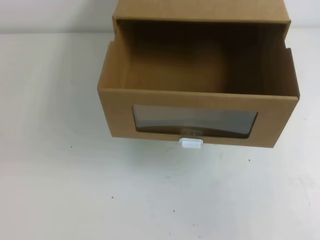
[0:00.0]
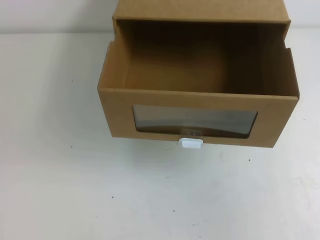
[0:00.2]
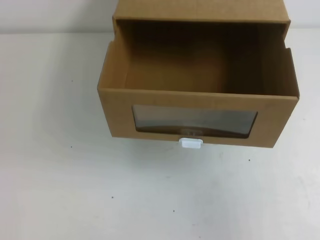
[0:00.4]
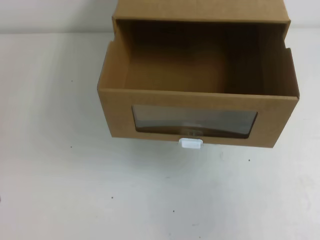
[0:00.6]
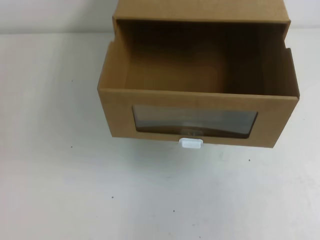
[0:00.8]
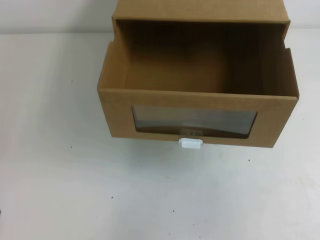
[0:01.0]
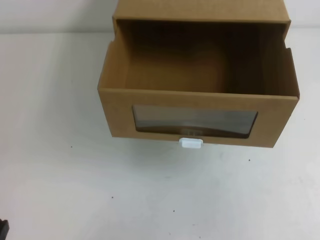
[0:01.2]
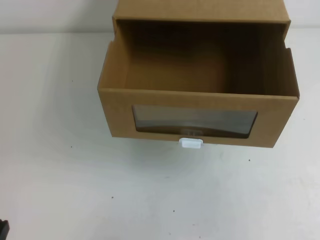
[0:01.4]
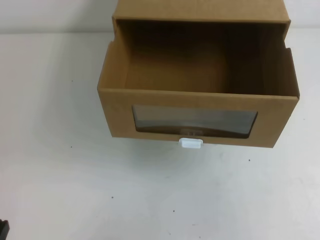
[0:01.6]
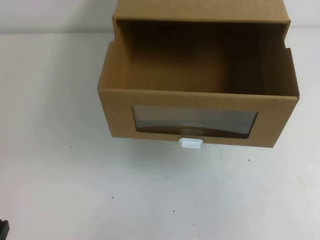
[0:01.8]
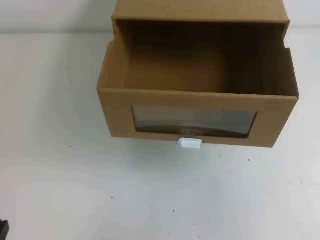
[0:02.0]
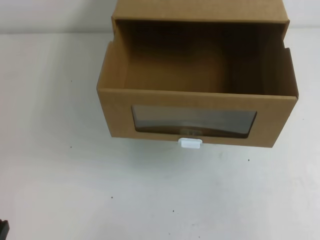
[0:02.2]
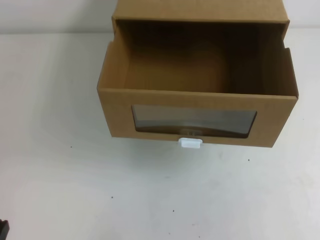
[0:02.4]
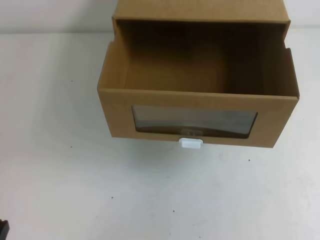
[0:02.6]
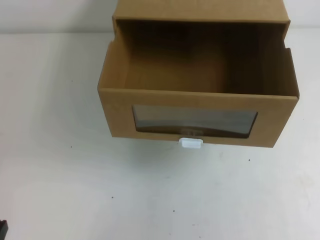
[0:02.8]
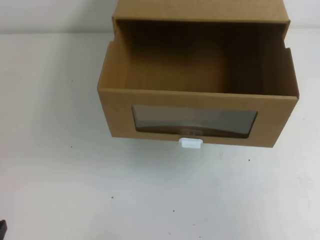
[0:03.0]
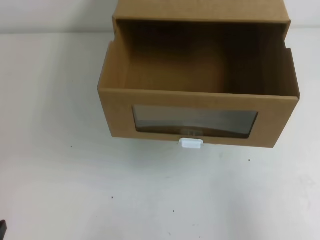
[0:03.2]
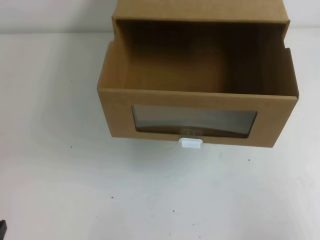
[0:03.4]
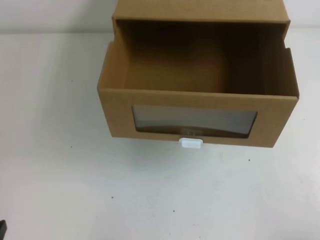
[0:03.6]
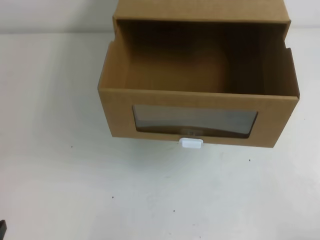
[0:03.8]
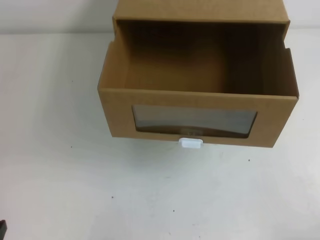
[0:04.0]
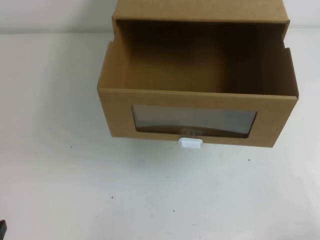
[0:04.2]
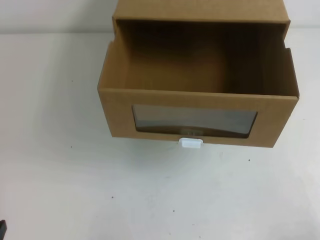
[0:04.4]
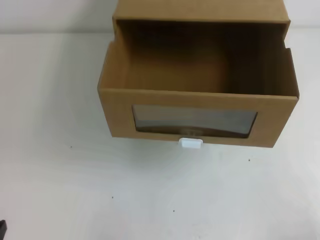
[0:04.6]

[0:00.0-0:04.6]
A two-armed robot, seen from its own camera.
Task of the whole recording: open the shoebox on the table.
0:00.0 to 0:01.6: The left gripper is displaced downward by some 20 cm.
0:03.0 to 0:04.6: The right gripper travels downward by roughly 20 cm.

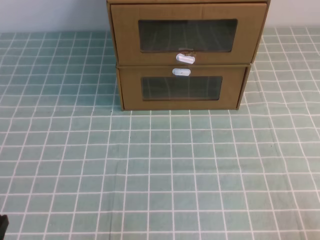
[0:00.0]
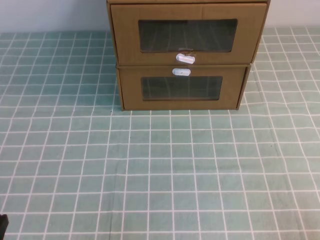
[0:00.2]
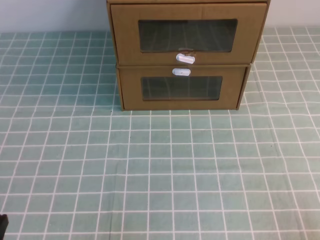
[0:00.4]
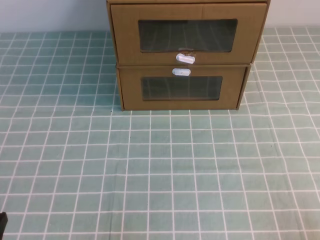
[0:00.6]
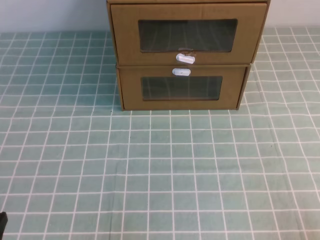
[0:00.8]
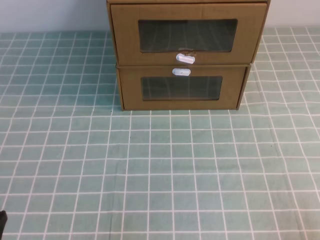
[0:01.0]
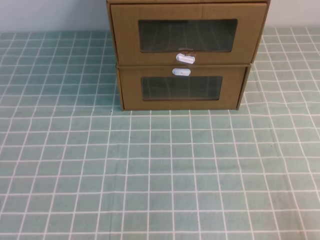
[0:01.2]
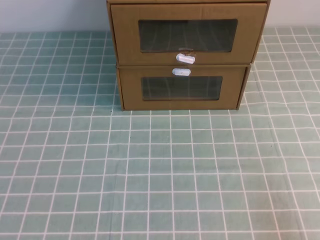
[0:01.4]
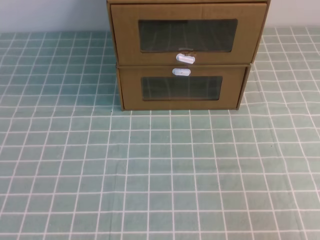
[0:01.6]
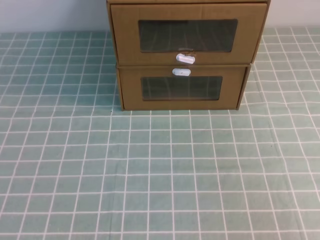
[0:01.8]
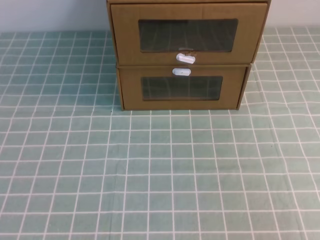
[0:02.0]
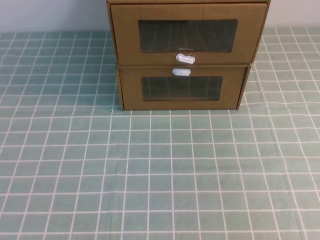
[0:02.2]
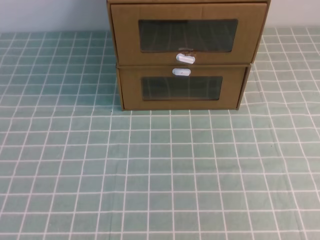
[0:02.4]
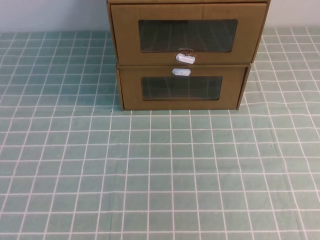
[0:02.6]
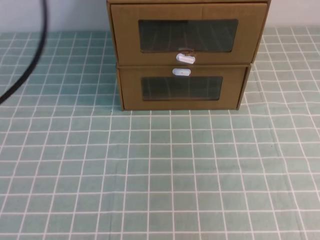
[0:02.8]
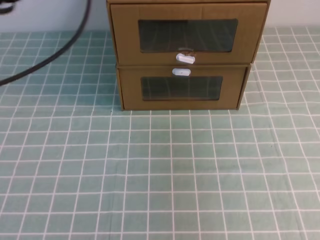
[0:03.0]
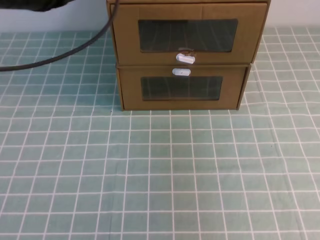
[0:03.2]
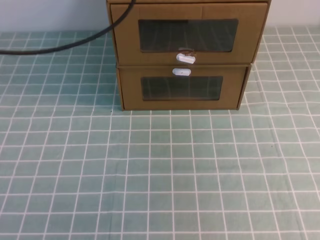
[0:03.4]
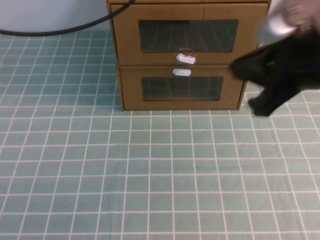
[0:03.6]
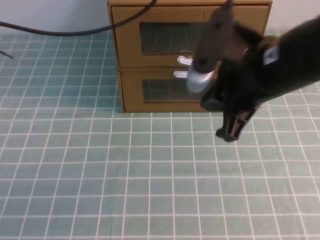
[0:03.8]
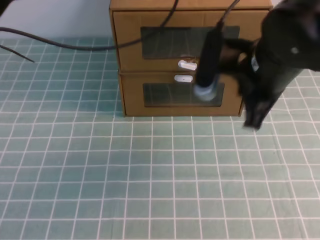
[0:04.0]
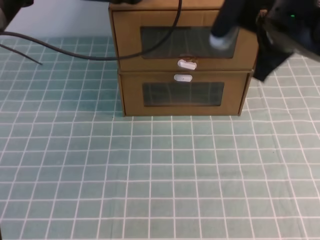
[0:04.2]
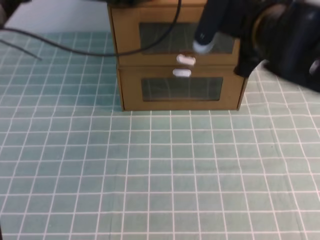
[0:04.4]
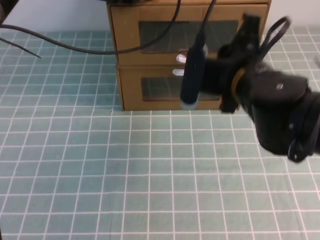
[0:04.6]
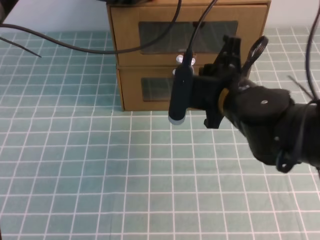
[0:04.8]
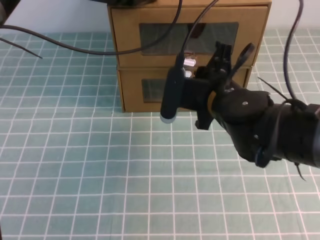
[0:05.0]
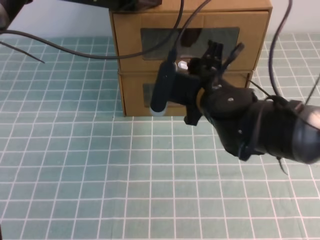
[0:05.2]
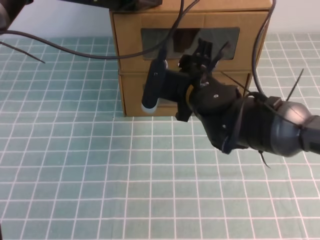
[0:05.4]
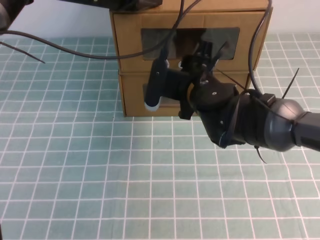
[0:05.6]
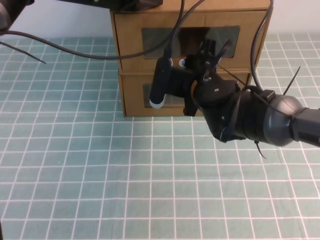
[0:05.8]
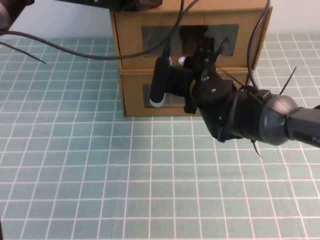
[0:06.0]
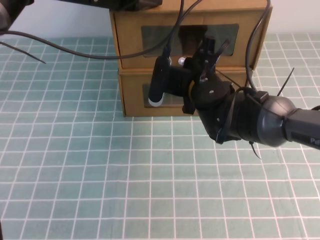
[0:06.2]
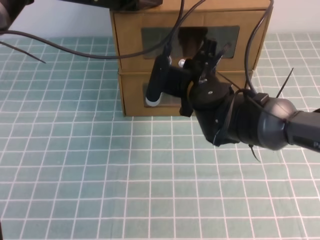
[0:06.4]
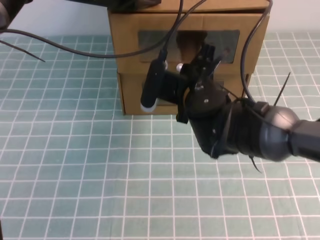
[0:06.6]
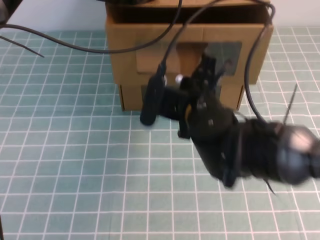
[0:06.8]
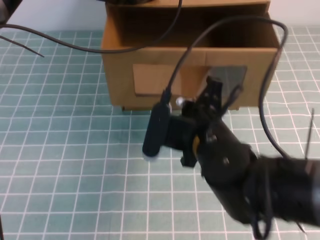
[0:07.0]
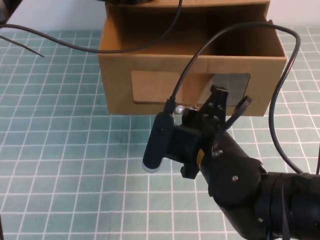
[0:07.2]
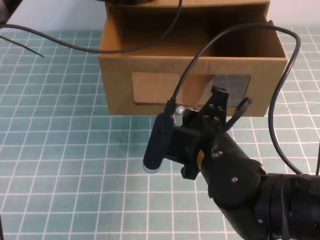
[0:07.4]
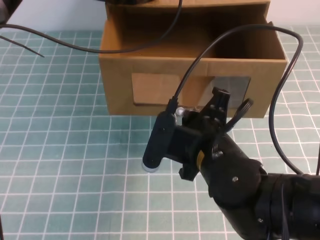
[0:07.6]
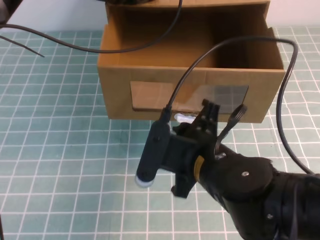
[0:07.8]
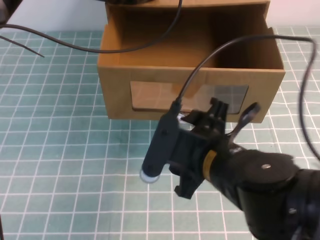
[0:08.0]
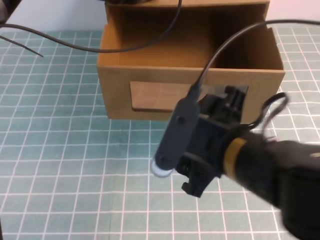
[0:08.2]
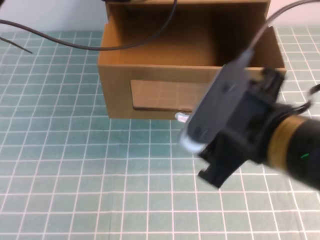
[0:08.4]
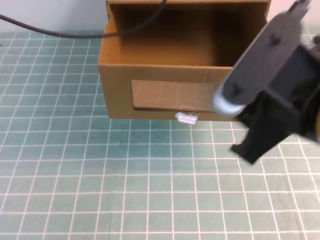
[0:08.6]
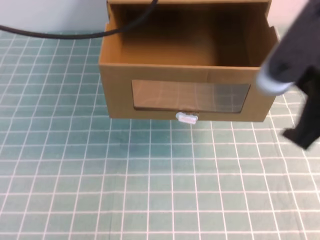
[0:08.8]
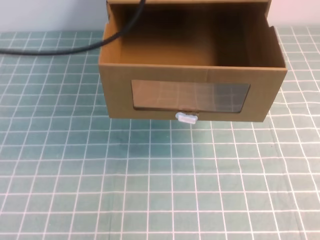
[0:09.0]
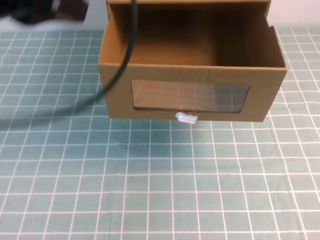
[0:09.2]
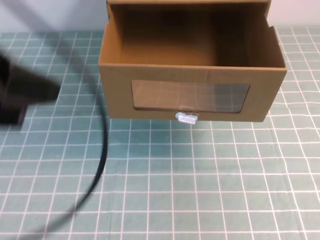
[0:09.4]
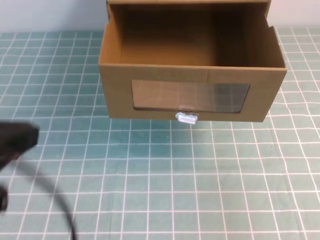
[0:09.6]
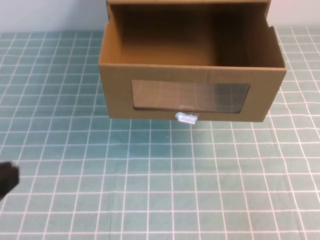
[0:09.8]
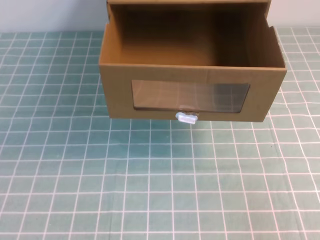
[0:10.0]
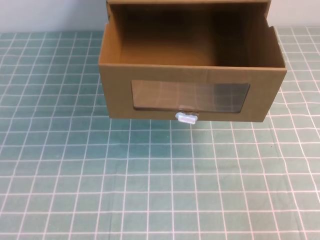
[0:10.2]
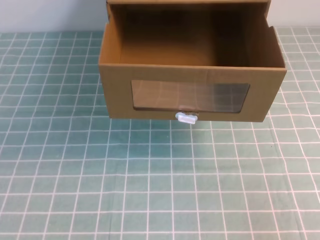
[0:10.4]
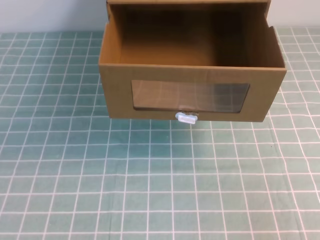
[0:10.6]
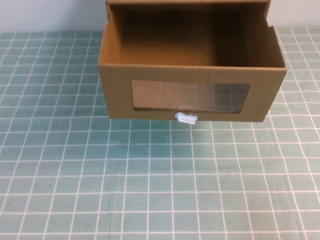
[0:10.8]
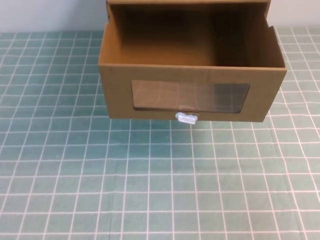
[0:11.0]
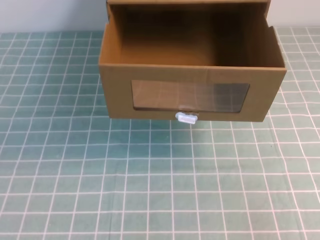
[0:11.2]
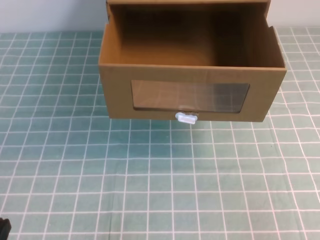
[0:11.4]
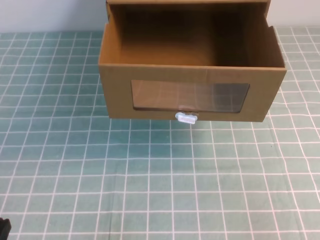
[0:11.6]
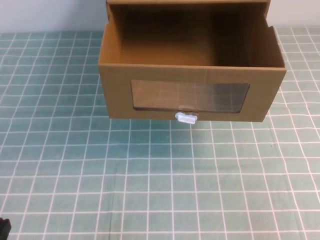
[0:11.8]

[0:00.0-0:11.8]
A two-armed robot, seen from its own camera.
Task of the whole recording: open the shoebox on the cyan tablecloth.
0:01.4 to 0:03.0: The left gripper goes some 30 cm upward and forward.
0:03.0 to 0:04.4: The right gripper is displaced forward, to the left and downward by approximately 30 cm; the left gripper moves forward, to the right and downward, roughly 25 cm.
0:04.4 to 0:06.0: The right gripper travels downward, to the left and forward by roughly 15 cm.
0:06.0 to 0:07.4: The right gripper moves backward, some 15 cm.
0:07.4 to 0:08.8: The left gripper travels upward and backward by about 10 cm; the right gripper travels upward, to the right and backward by approximately 20 cm, and opens its fingers.
0:08.8 to 0:10.4: The right gripper is displaced to the right, backward and downward by roughly 25 cm, and closes its fingers, while the left gripper goes roughly 35 cm backward.

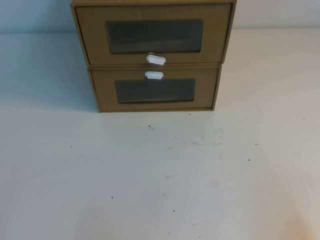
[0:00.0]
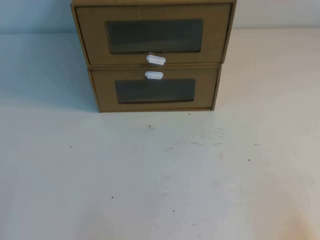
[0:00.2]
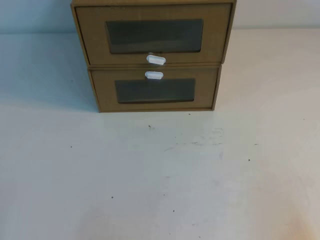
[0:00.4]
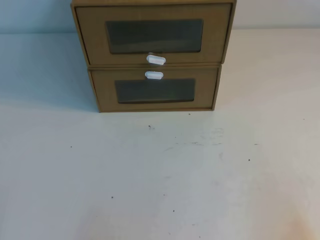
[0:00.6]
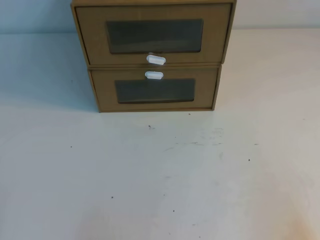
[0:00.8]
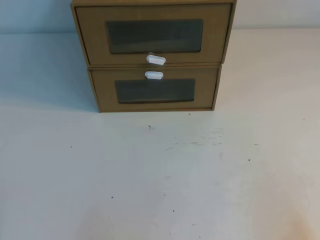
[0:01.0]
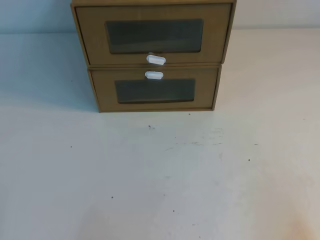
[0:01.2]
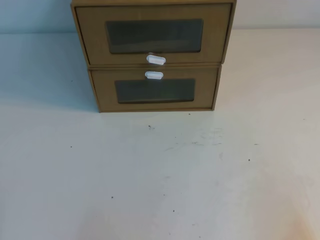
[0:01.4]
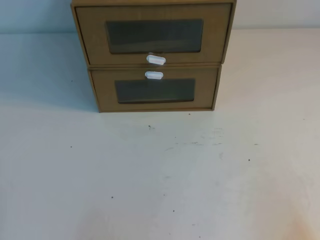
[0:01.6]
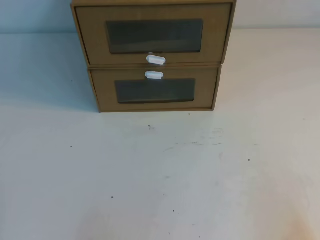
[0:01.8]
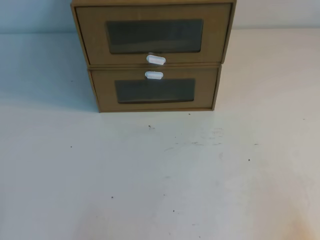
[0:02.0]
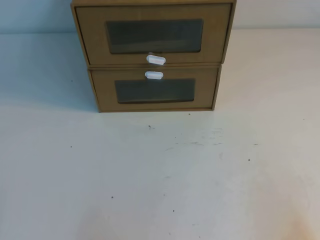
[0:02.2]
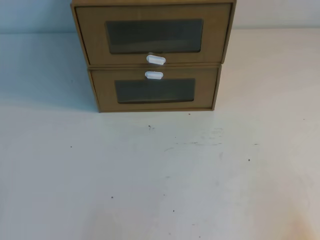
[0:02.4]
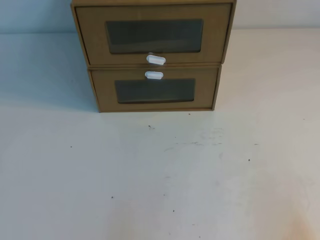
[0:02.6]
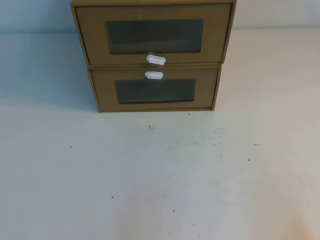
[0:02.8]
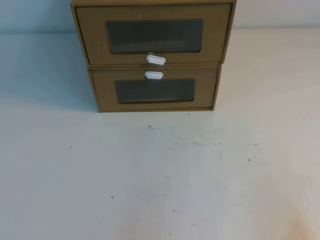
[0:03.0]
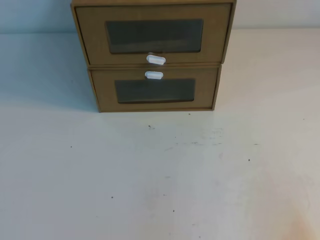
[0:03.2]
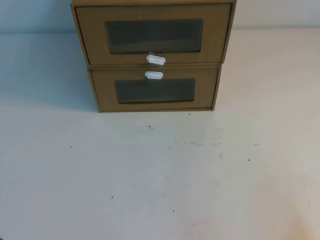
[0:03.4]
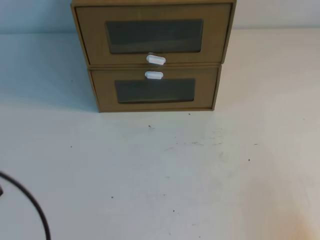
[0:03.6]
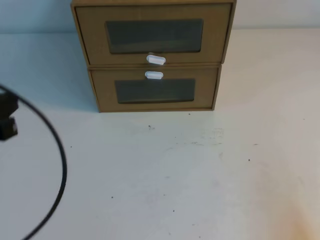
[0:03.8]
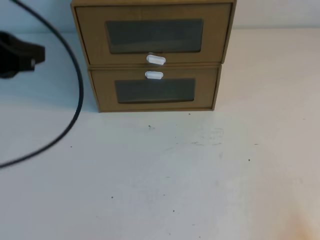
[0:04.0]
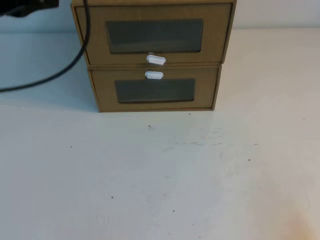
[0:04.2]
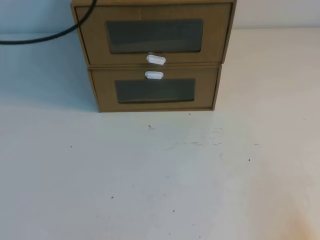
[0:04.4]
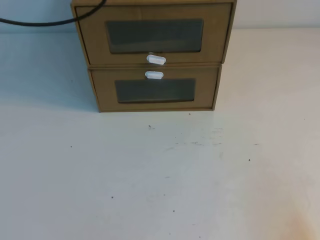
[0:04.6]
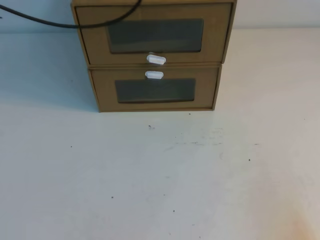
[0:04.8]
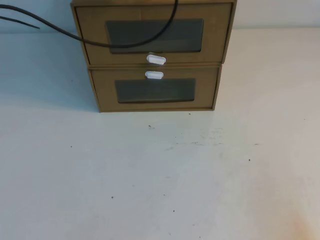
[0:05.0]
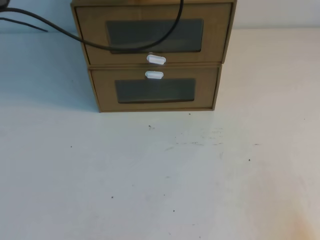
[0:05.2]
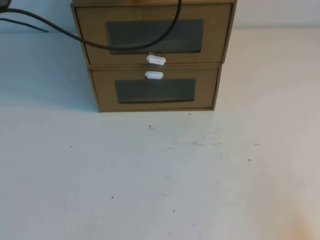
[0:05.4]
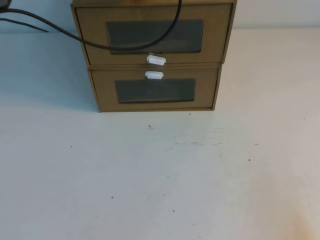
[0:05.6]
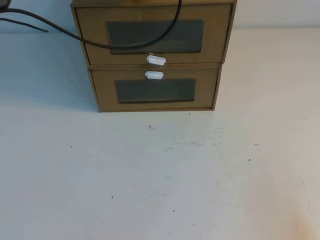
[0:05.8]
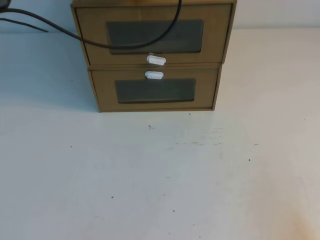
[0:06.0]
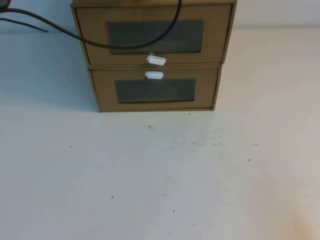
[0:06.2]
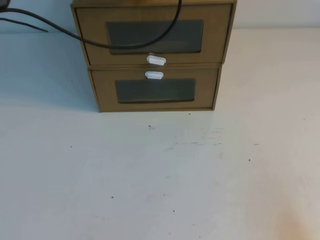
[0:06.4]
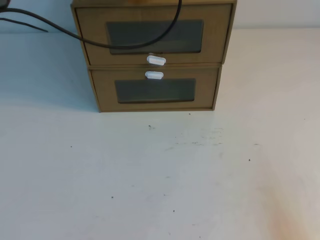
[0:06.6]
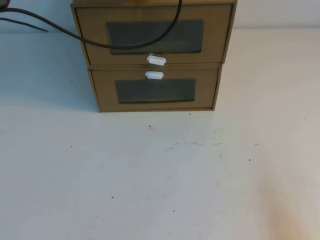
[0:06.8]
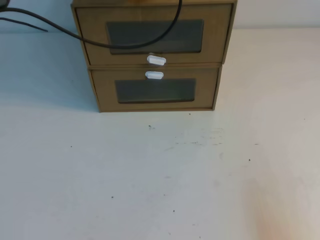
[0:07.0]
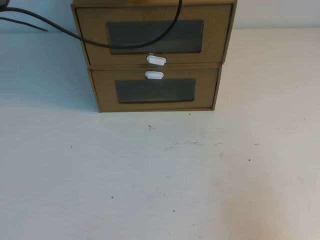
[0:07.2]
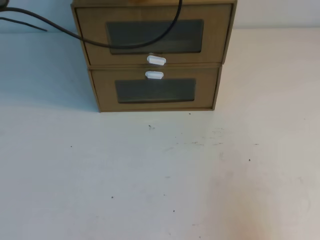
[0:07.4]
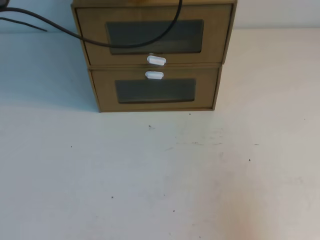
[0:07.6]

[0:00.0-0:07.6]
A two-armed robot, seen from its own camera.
Task of the whole recording: open the shoebox on the table.
0:03.0 to 0:04.6: The left gripper is displaced forward and upward by about 40 cm.
0:04.6 to 0:06.0: The left gripper heads to the right, forward and downward, covering roughly 10 cm.
0:06.0 to 0:07.6: The right gripper goes approximately 10 cm upward.
